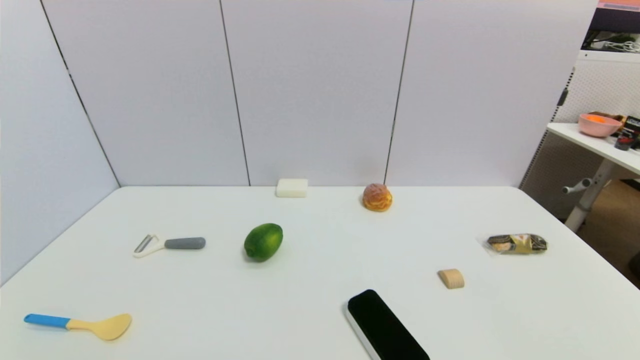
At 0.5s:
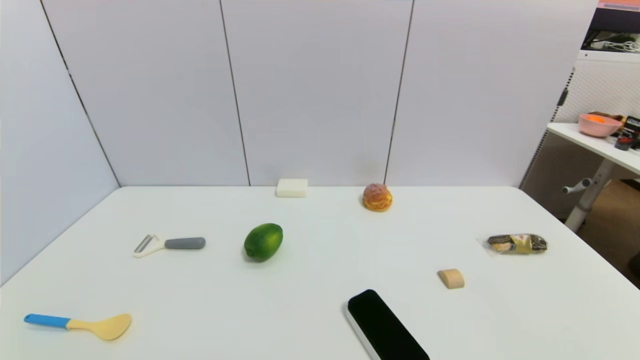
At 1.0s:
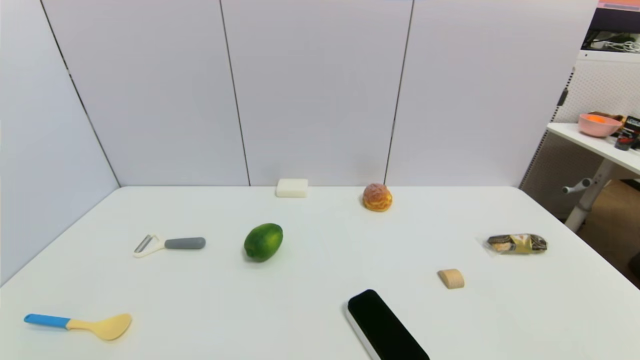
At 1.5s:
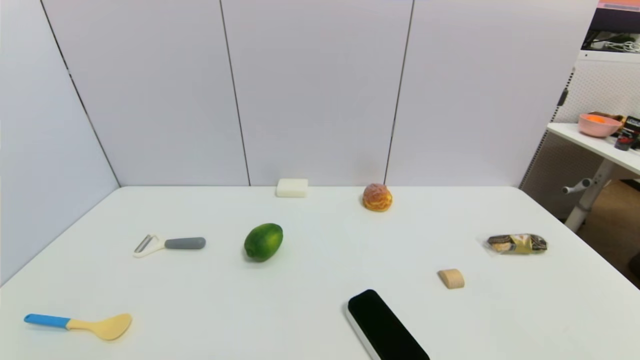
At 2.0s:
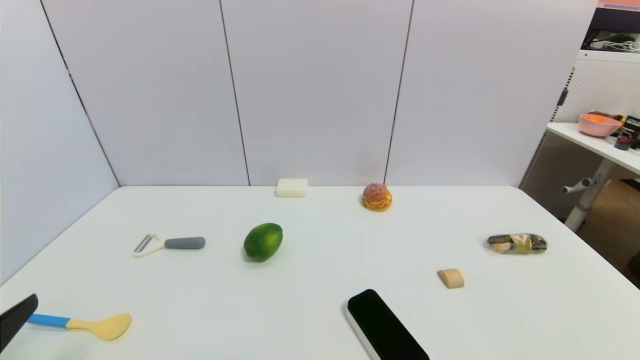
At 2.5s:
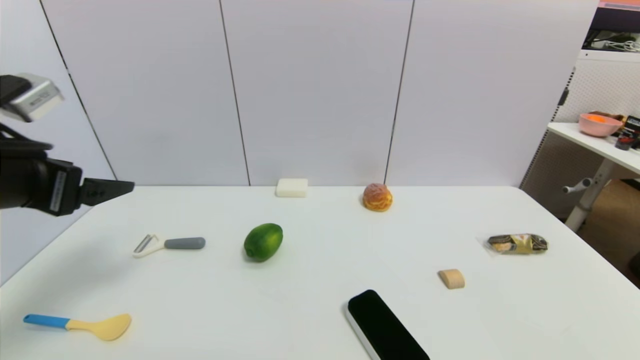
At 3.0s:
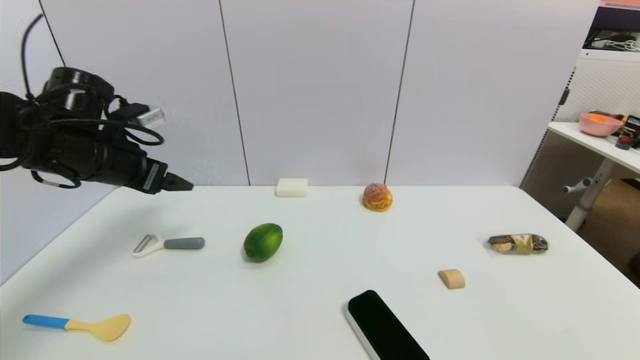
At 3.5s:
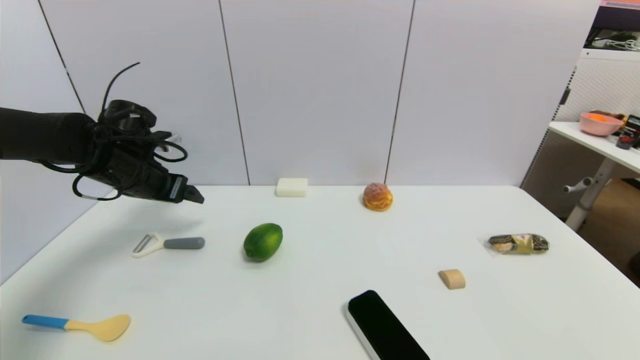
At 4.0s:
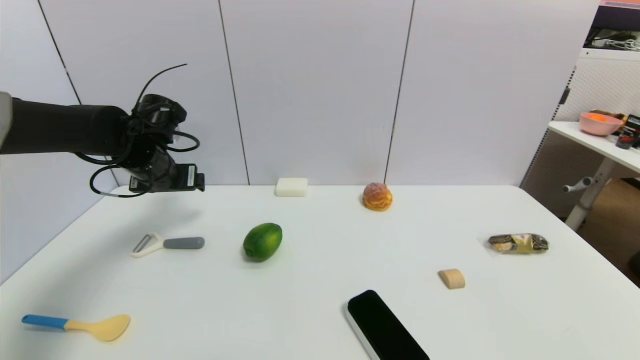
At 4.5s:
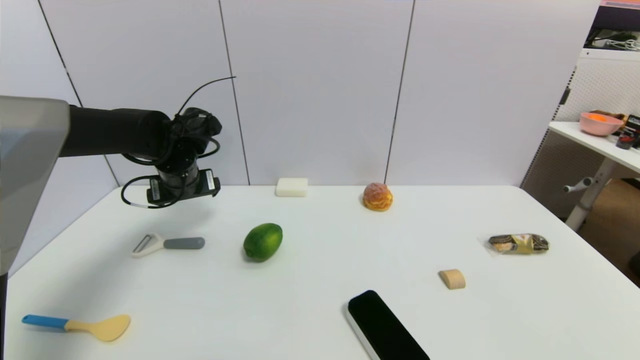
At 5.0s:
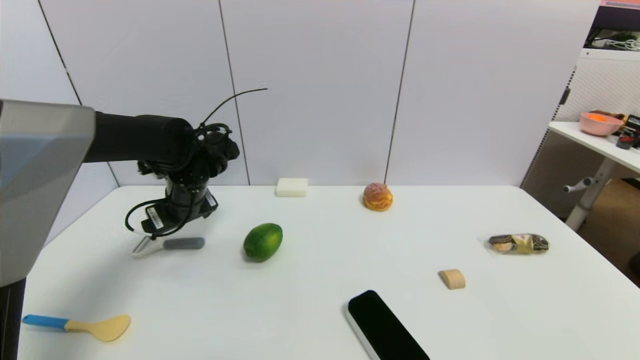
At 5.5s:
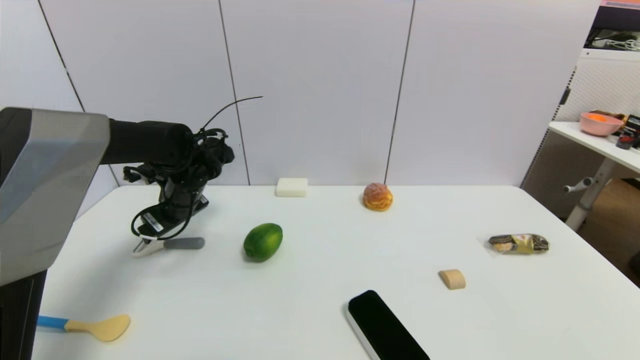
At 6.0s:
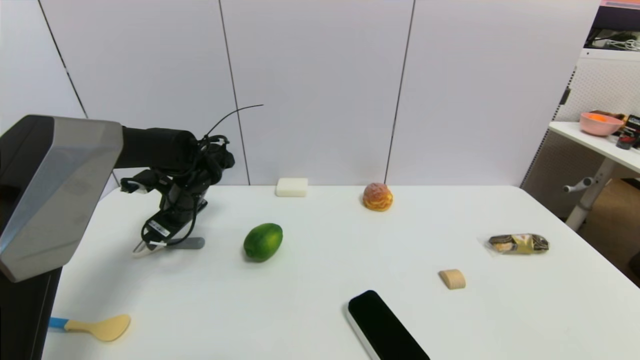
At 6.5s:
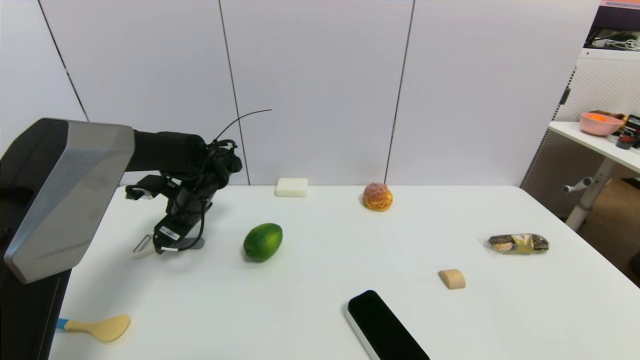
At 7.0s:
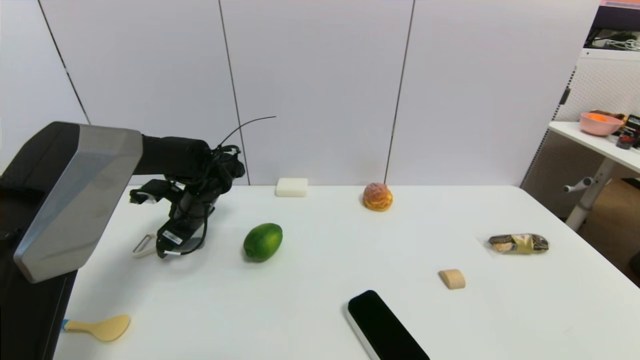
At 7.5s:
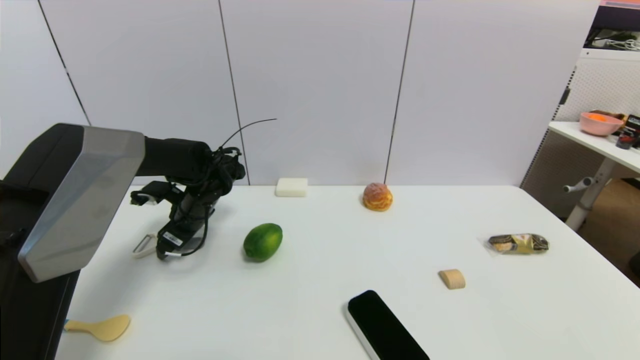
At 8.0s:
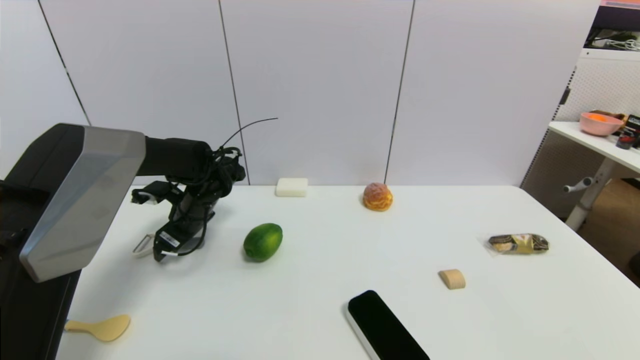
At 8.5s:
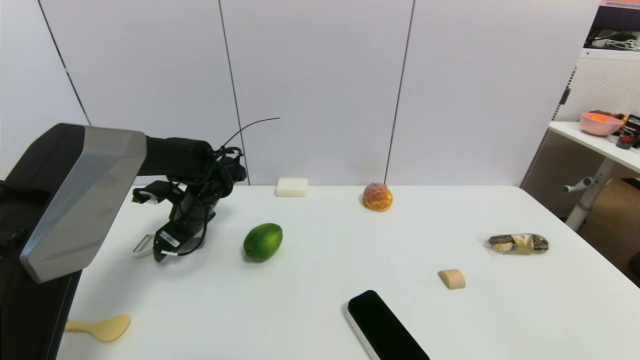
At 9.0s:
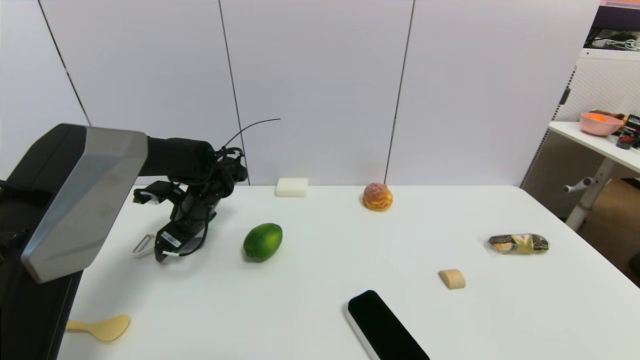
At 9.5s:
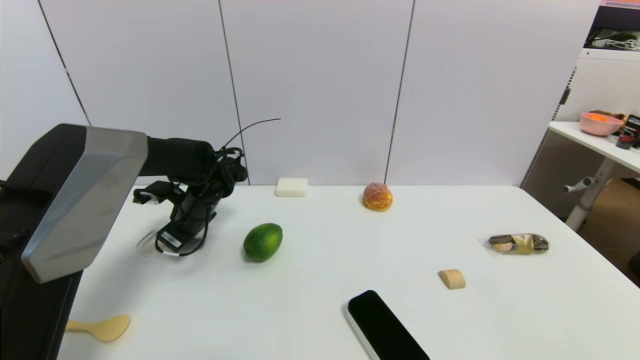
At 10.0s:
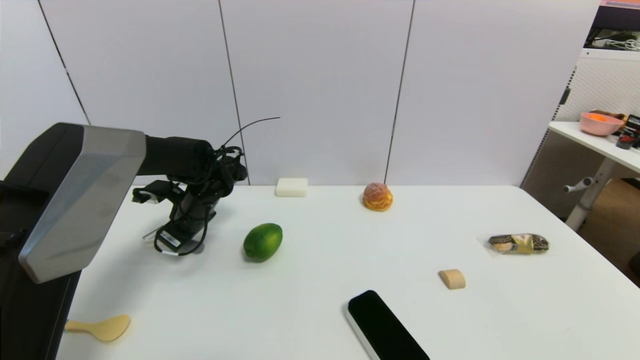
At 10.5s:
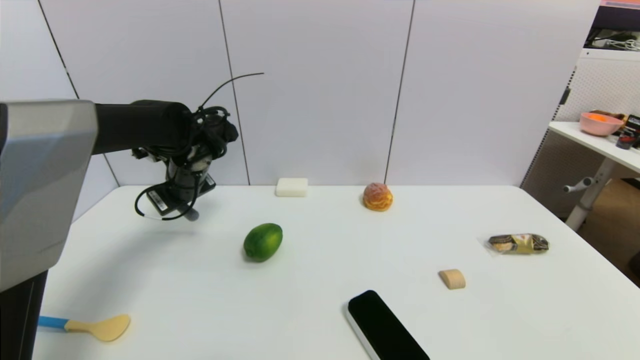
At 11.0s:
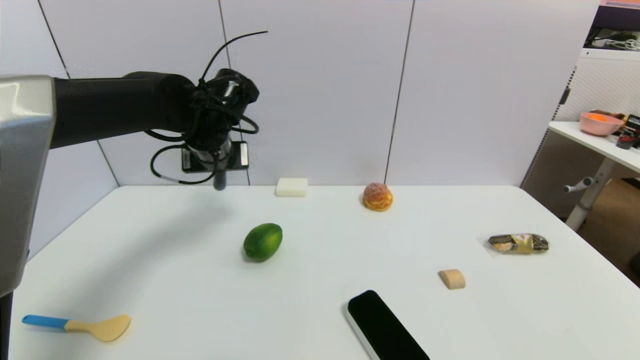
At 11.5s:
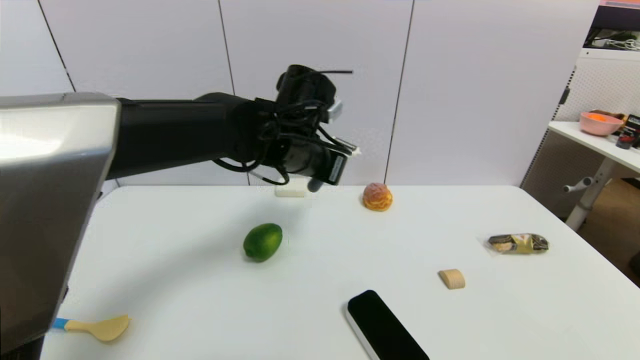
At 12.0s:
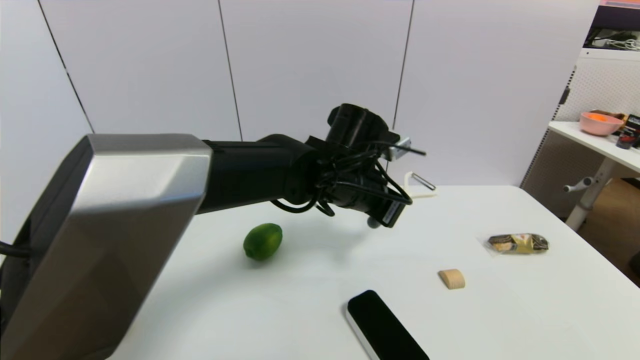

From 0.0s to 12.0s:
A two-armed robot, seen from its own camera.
Step, from 2.0s to 10.0s: Grasp the peeler with left gripper.
From 2.0s to 4.0s: The left gripper travels forward by about 35 cm.
From 4.0s to 6.0s: The left gripper shifts about 5 cm downward.
From 6.0s to 8.0s: There are only small adjustments of the grippers.
From 8.0s to 10.0s: The left gripper closes up.
From 10.0s to 12.0s: The left gripper travels to the right by roughly 25 cm.

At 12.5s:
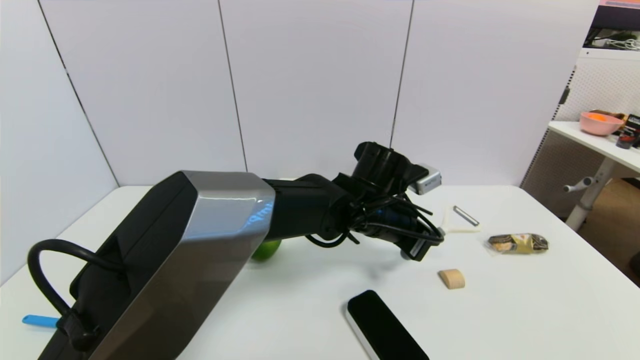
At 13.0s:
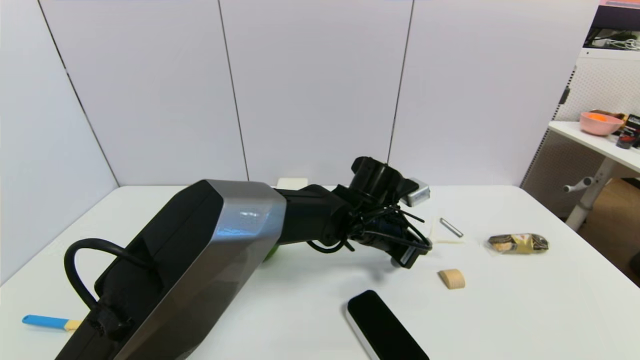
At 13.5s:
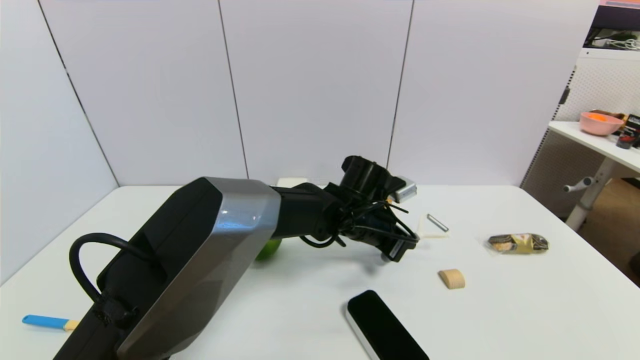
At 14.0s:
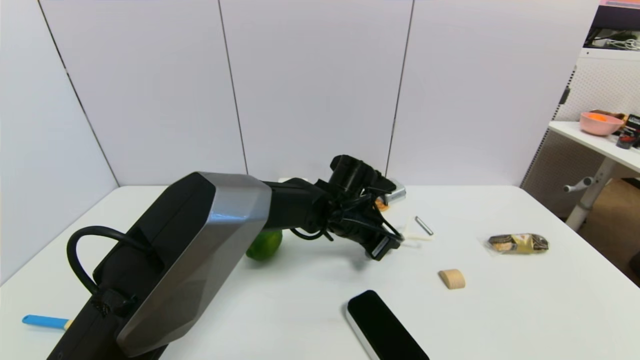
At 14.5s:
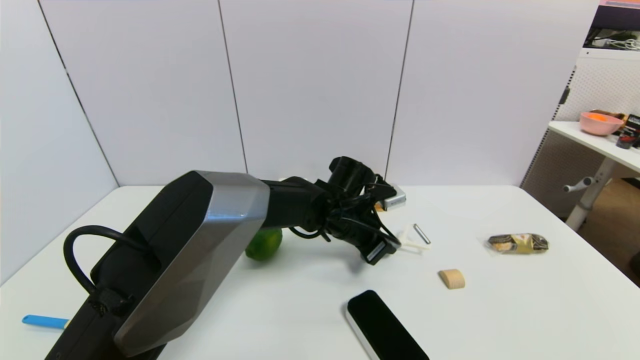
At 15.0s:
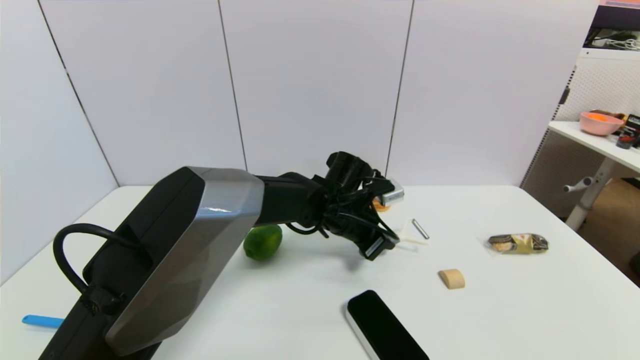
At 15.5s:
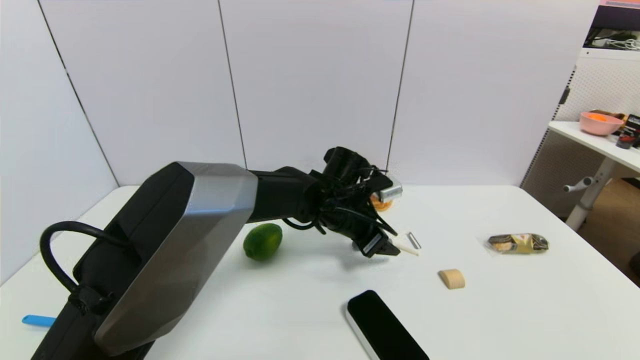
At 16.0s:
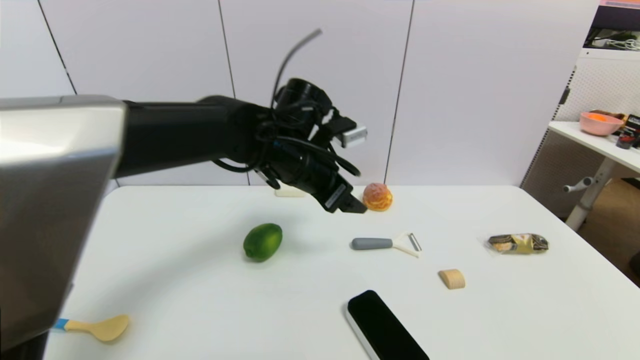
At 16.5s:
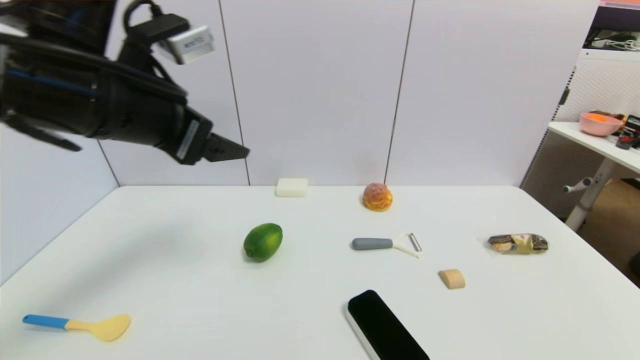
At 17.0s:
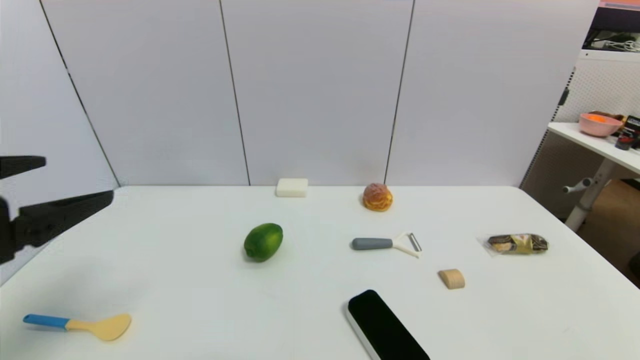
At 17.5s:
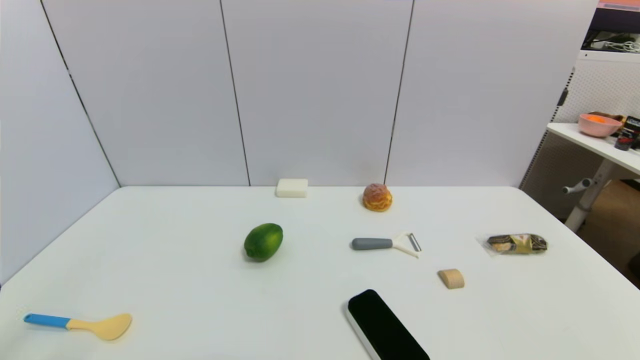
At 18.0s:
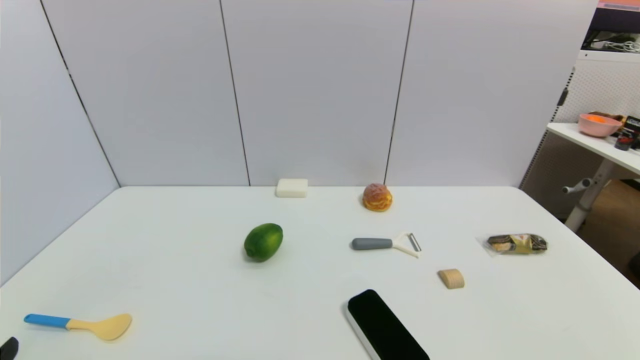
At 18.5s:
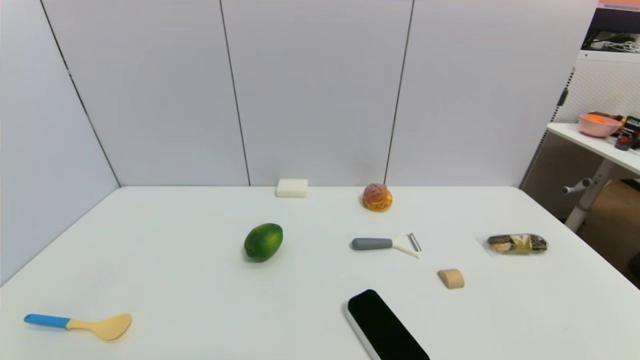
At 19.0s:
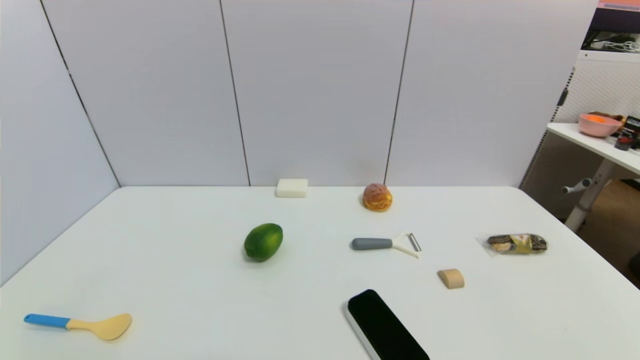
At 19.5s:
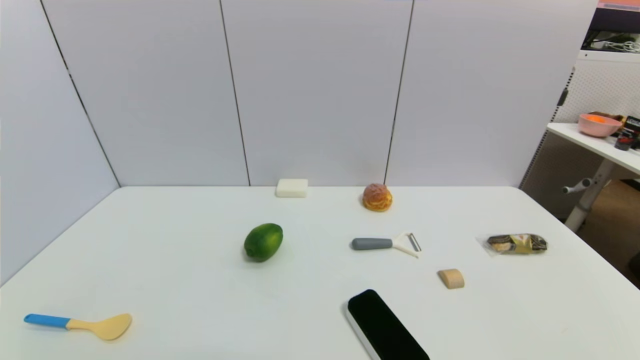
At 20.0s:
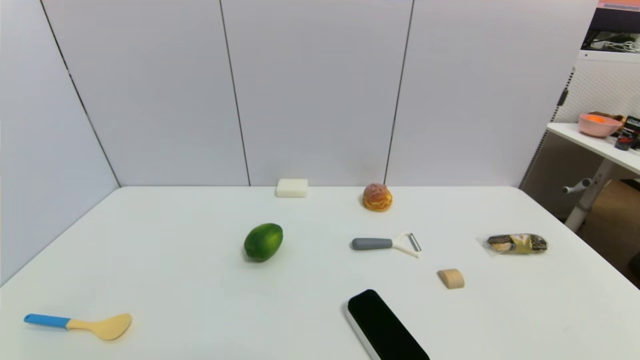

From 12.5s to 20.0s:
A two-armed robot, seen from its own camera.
Step, from 12.5s to 15.5s: Place the peeler on the table with left gripper.
From 12.5s to 14.5s: The left gripper shifts by about 5 cm.
From 14.5s to 16.5s: The left gripper travels to the left, upward and backward by approximately 35 cm, and opens its fingers.
From 16.5s to 18.0s: The left gripper moves backward, downward and to the left, approximately 30 cm.

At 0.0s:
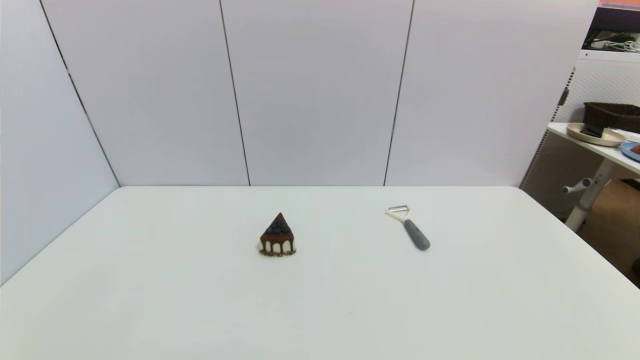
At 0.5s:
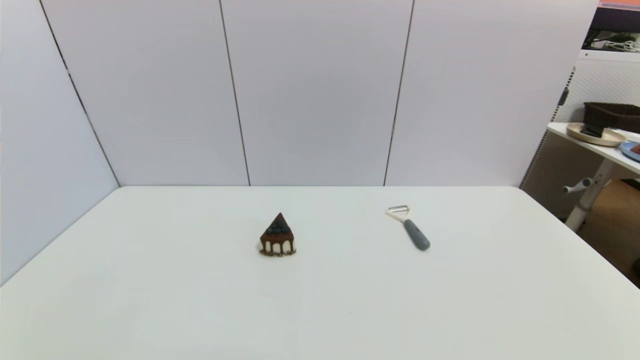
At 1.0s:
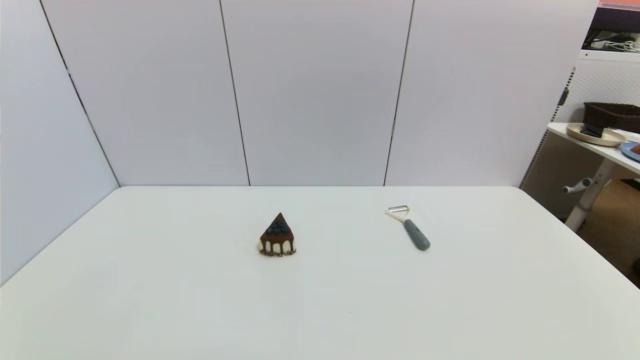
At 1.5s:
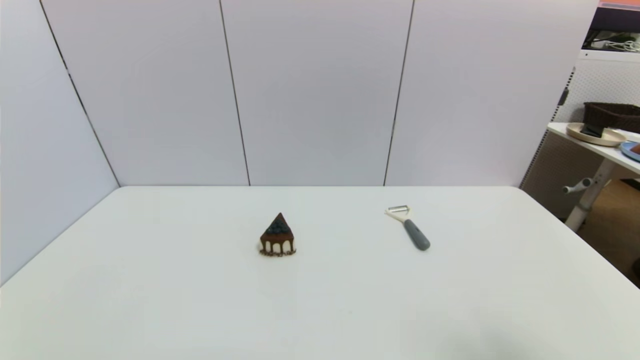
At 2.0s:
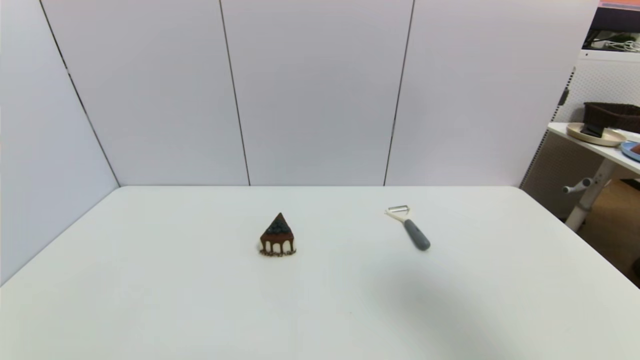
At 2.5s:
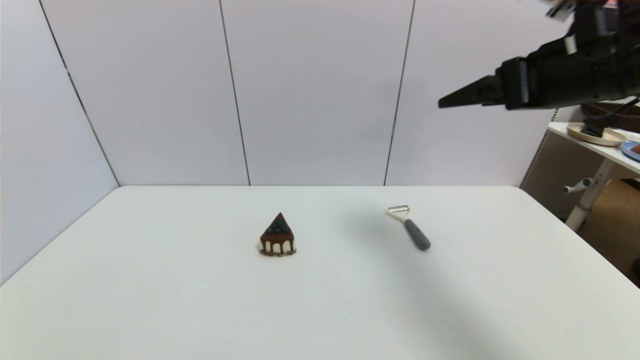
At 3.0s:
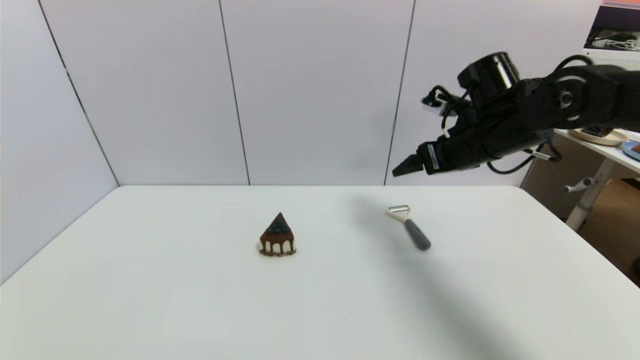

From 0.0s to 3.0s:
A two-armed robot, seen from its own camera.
From 1.5s to 3.0s: The right gripper travels forward by about 35 cm.
